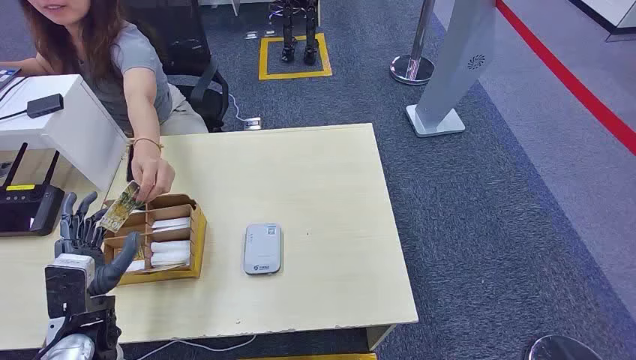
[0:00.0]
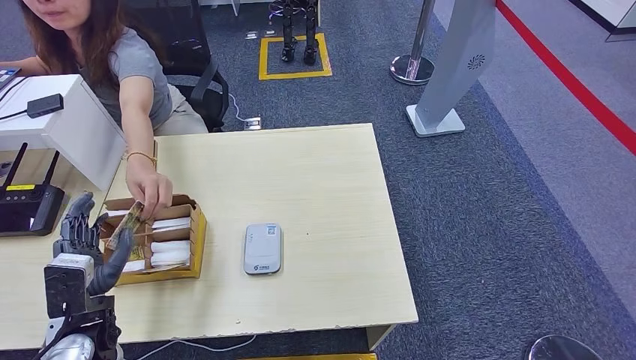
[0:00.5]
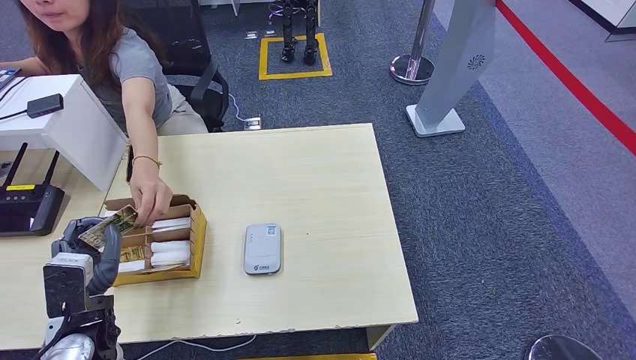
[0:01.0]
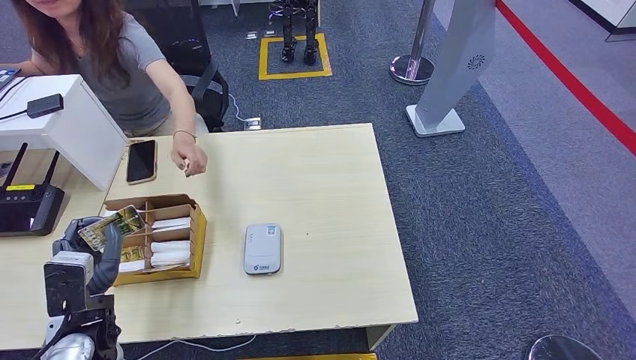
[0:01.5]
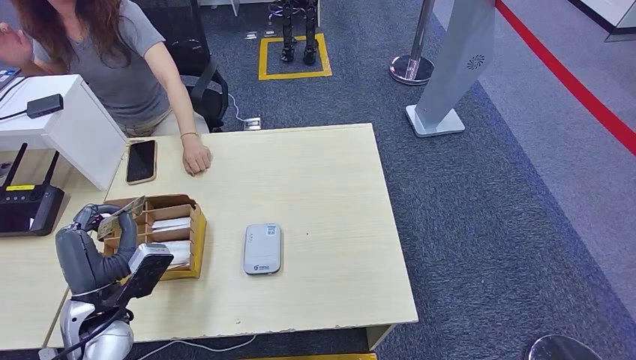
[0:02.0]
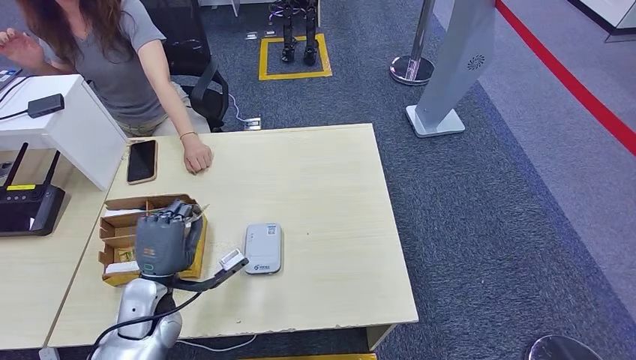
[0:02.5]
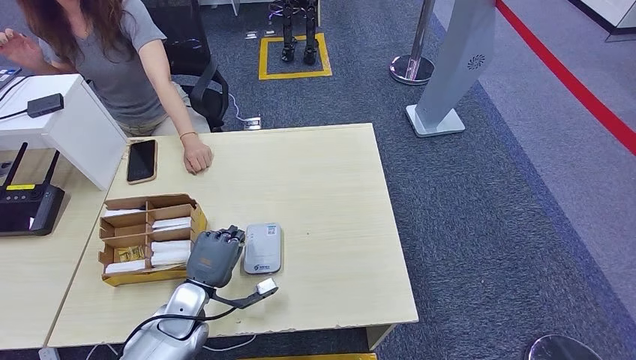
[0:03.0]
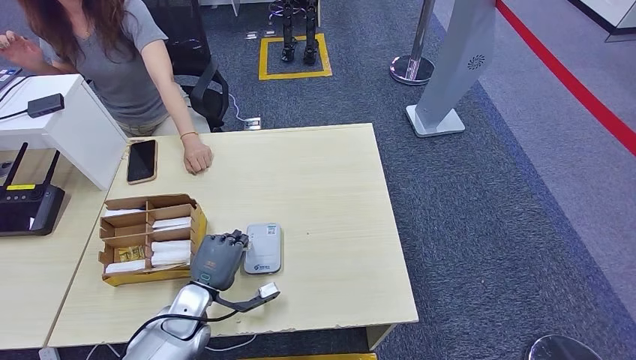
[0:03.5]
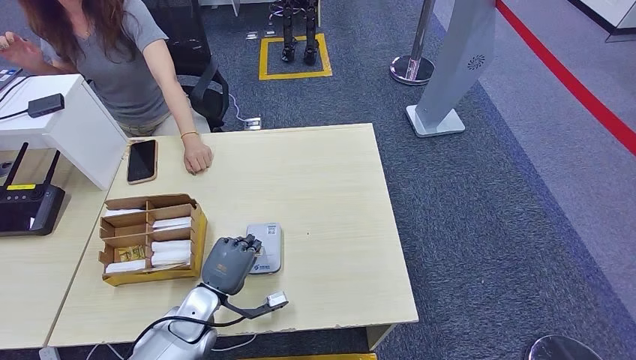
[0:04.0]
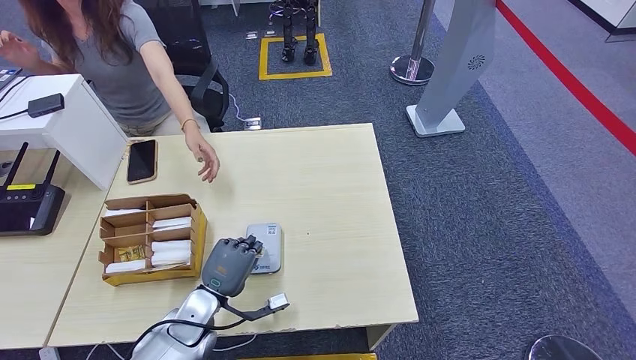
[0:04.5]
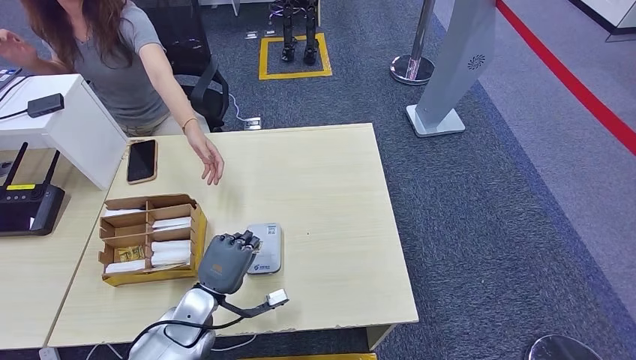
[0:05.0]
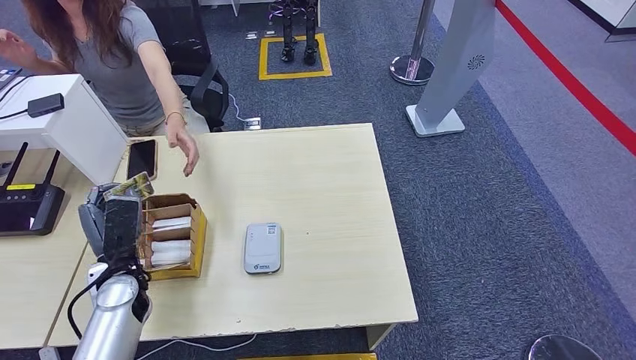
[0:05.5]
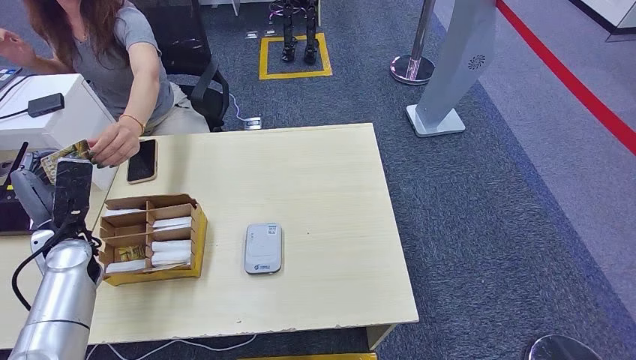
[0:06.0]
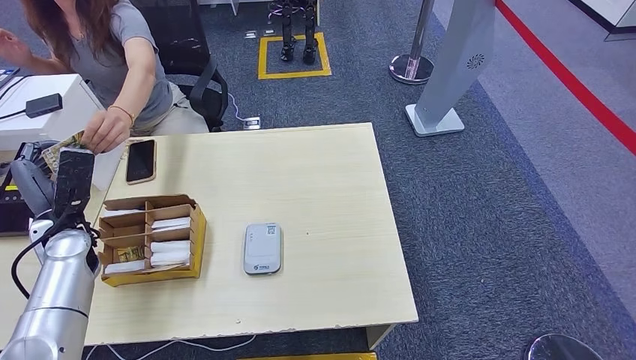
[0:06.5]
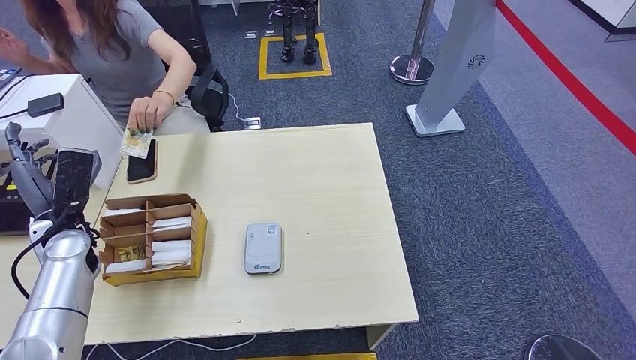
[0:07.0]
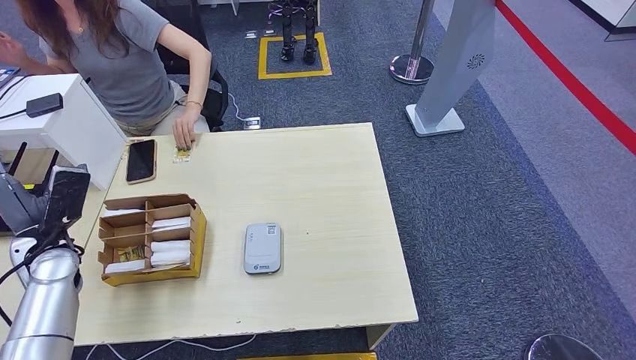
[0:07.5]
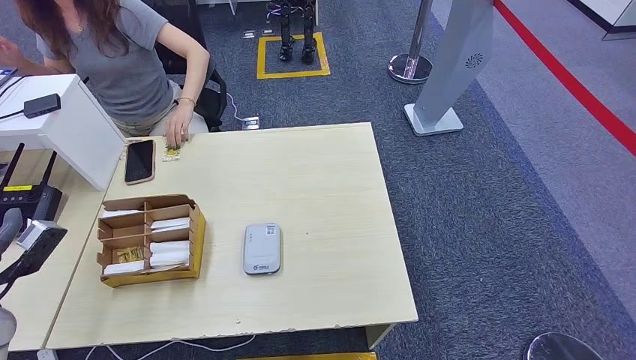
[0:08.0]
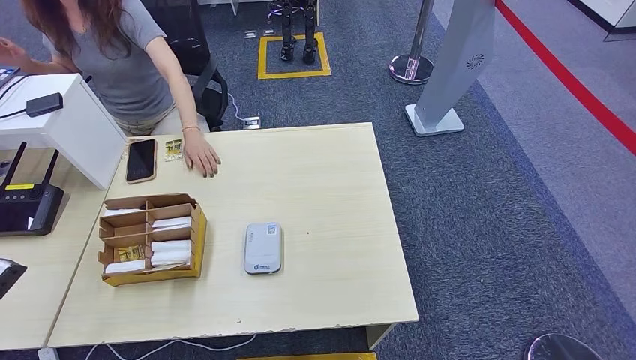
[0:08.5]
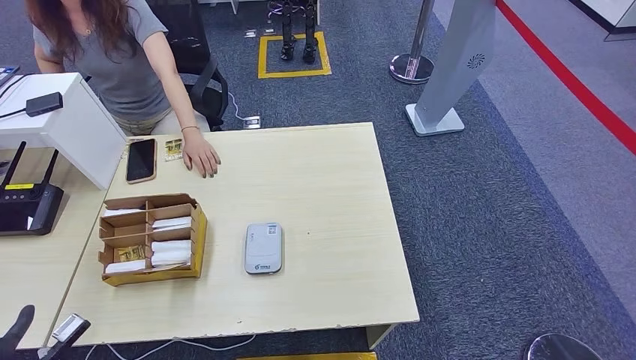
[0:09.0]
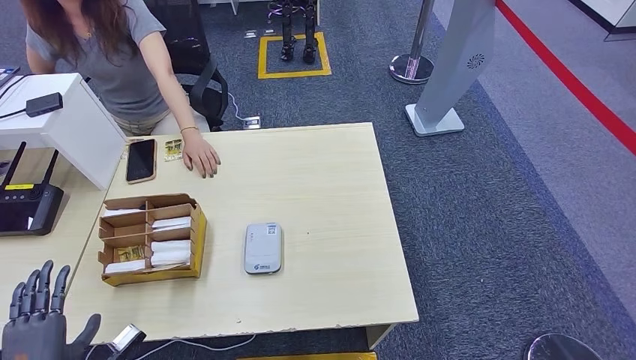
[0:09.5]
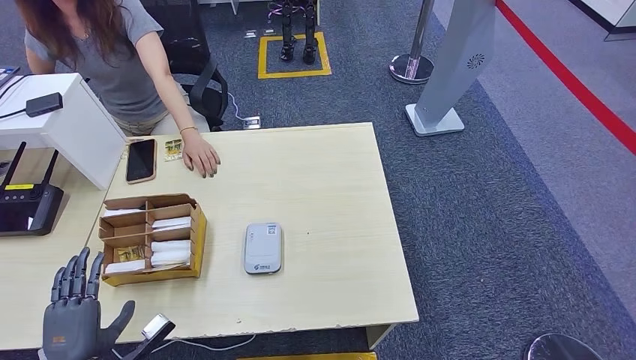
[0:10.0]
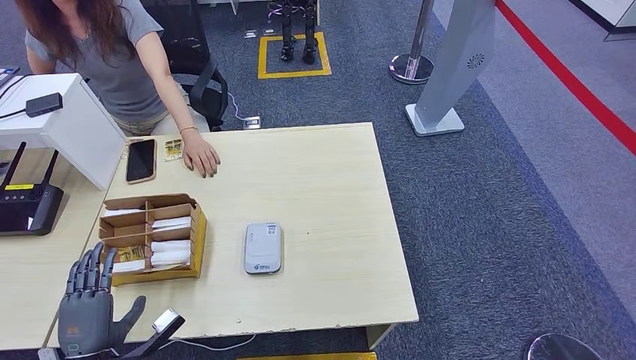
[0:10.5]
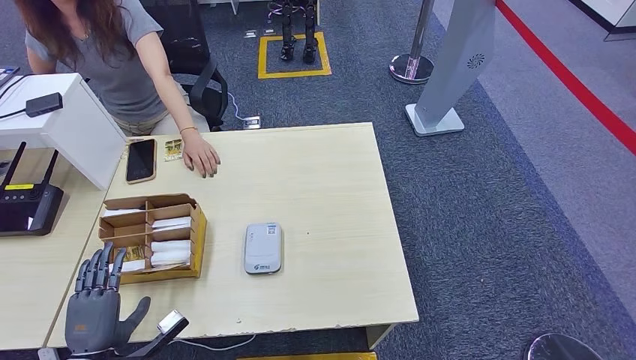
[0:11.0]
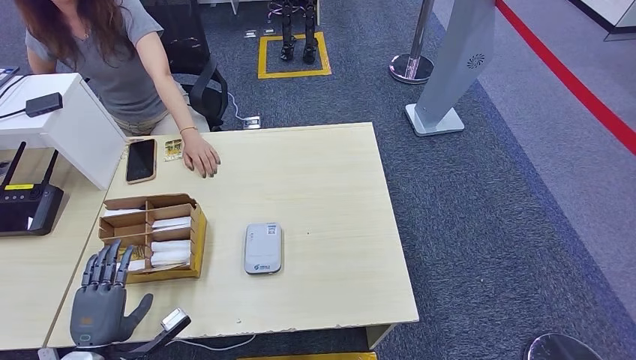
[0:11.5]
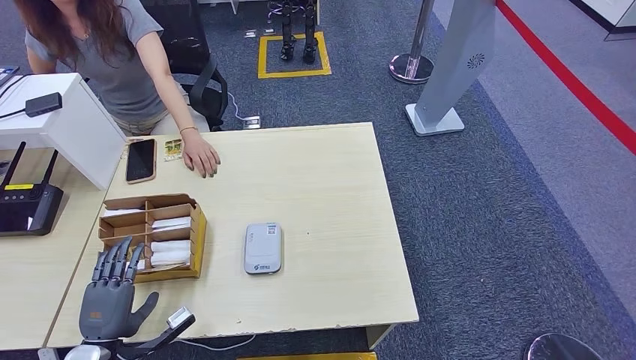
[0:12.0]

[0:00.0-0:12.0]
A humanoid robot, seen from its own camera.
Step, 0:00.0 to 0:02.5: Take the ID card from the person's hand.
Step, 0:04.0 to 0:06.5: Pick up the room key from the key card box.
0:02.0 to 0:04.0: The left hand travels to the right and downward by some 15 cm.
0:04.0 to 0:06.0: The left hand is displaced to the left, upward and forward by some 25 cm.
0:06.0 to 0:08.0: The left hand is displaced backward and to the left by some 15 cm.
0:08.0 to 0:10.0: The left hand is displaced downward, to the right and backward by roughly 20 cm.
0:10.0 to 0:12.0: The hands stay close to where they were, moving slightly.

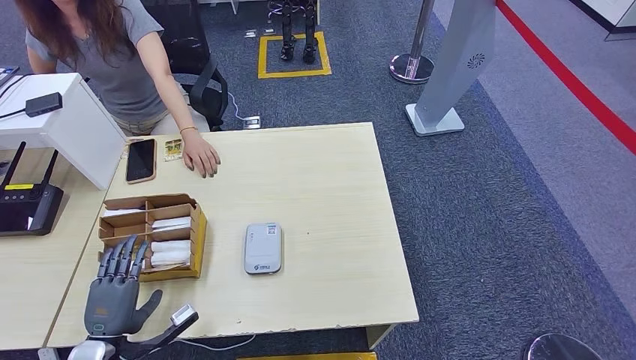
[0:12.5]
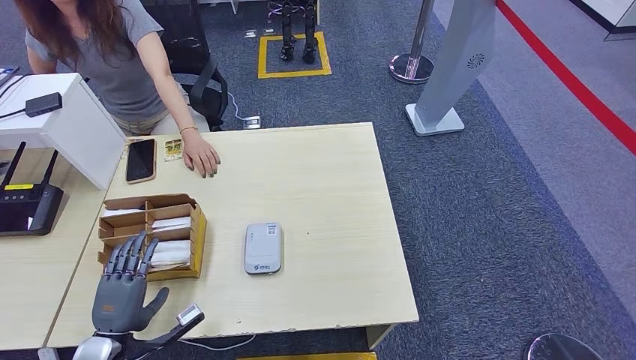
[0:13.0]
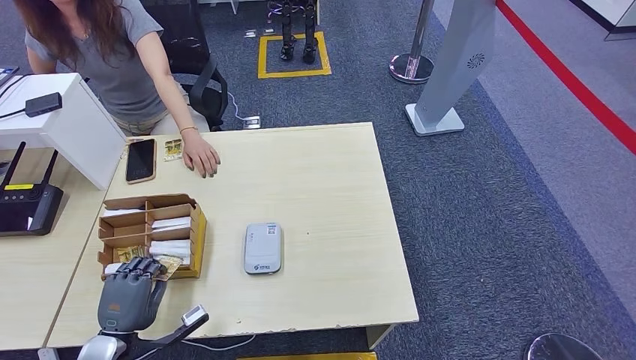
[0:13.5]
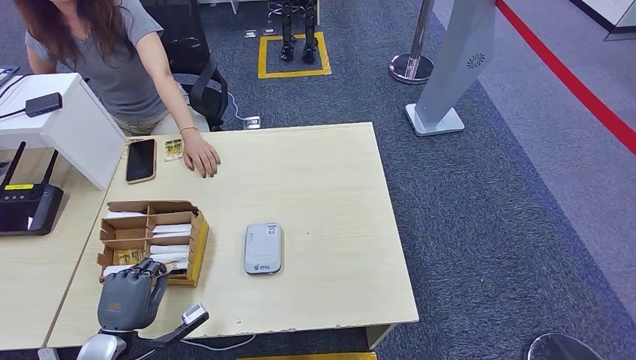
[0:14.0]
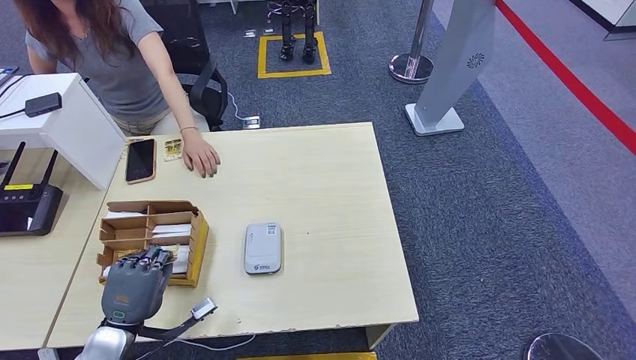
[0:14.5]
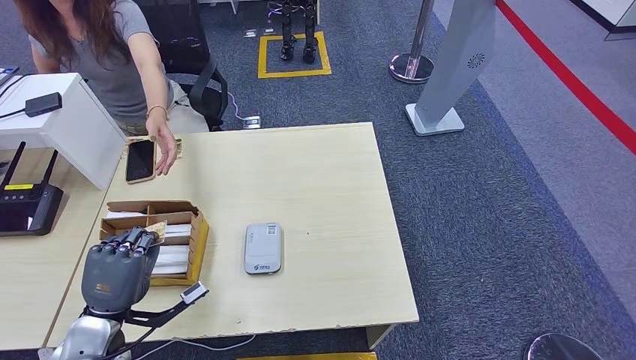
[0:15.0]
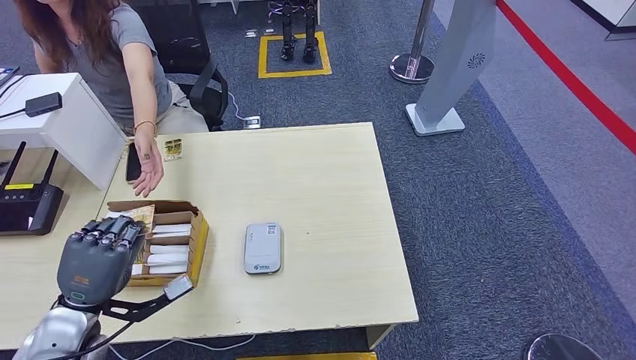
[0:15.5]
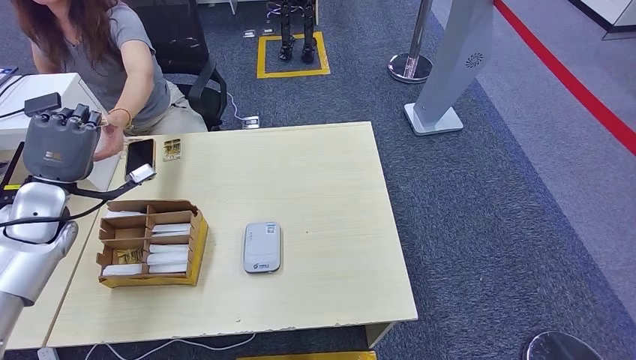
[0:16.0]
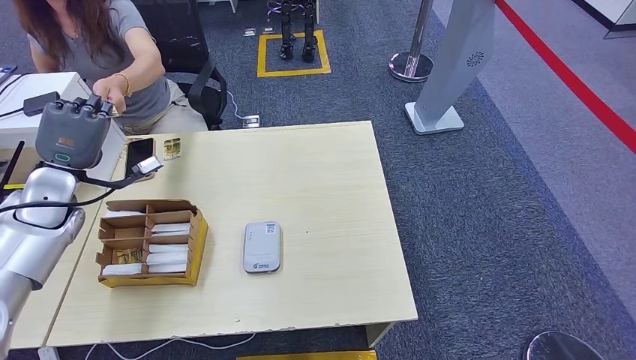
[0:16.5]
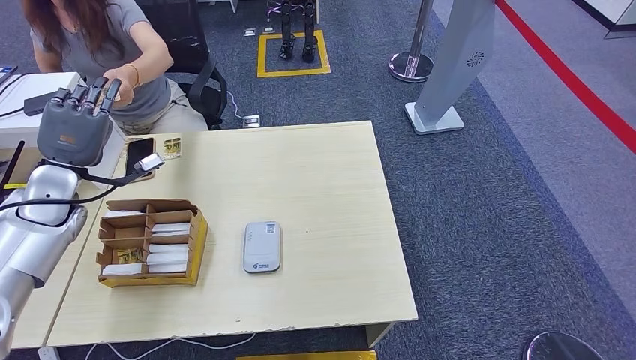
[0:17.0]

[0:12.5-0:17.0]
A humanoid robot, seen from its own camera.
Step, 0:14.5 to 0:17.0: Hand the room key to the person.
0:12.5 to 0:14.5: The left hand changes place by roughly 5 cm.
0:14.5 to 0:17.0: The left hand travels forward and upward by roughly 25 cm; the right hand shifts roughly 5 cm forward.
